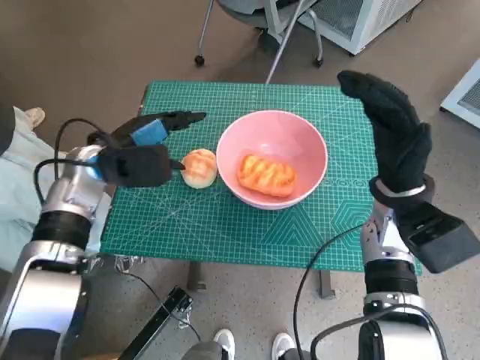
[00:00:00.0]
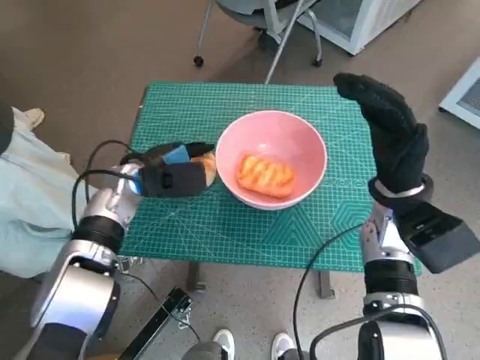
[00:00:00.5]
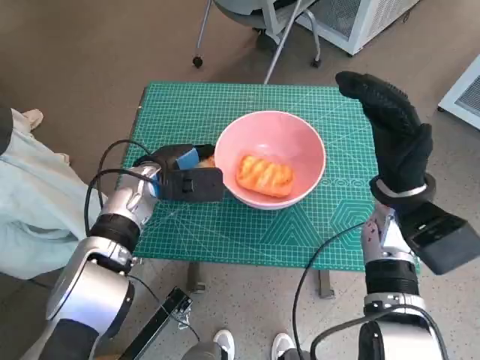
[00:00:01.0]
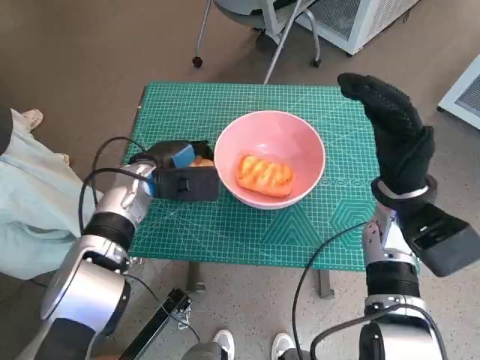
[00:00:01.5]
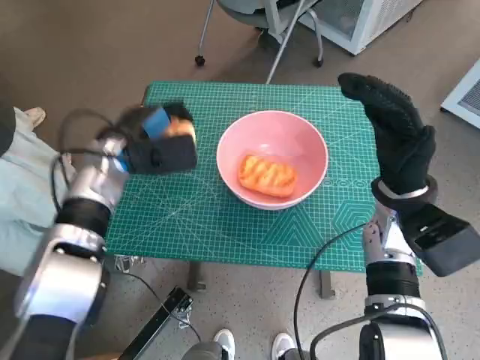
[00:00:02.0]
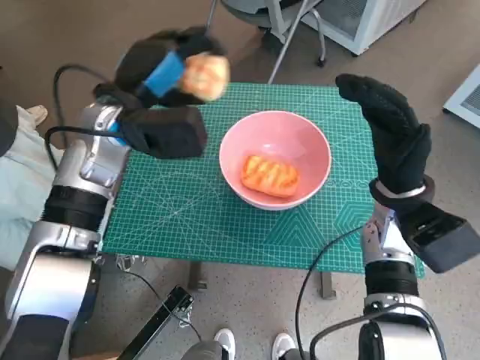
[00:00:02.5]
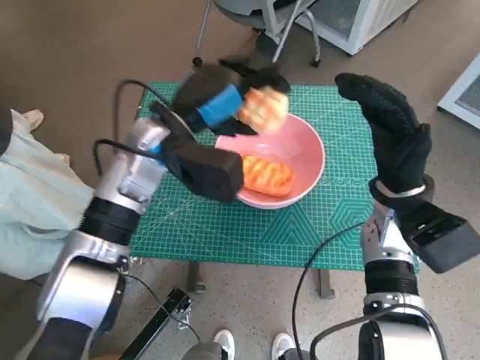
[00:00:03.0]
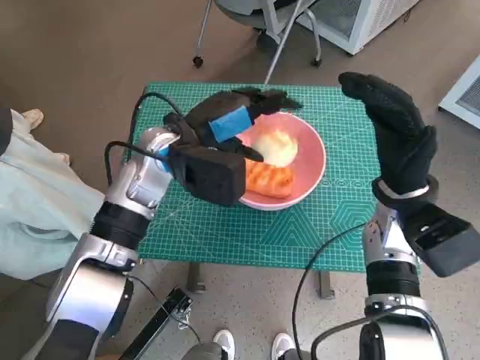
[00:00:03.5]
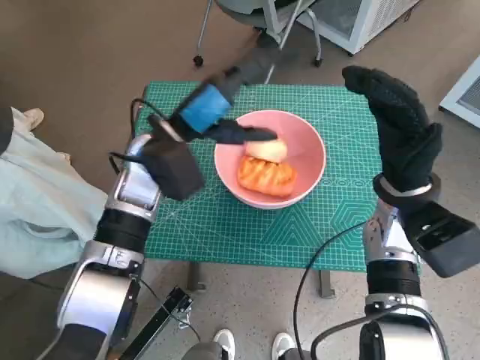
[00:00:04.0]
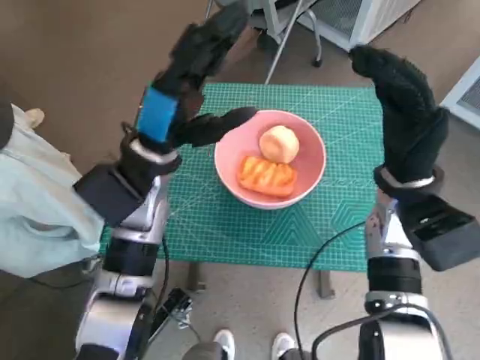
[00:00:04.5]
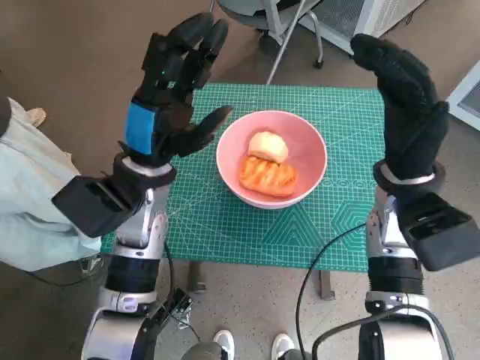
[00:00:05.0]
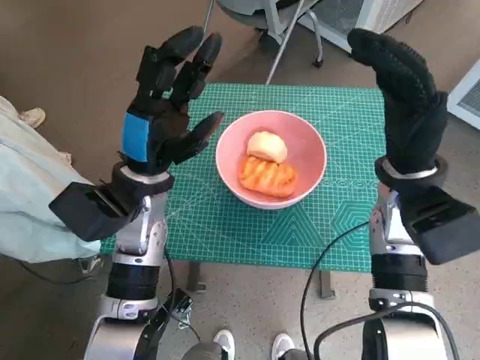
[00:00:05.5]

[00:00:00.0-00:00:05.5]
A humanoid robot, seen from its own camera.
Task of the whole recording: Push the bowl to the center of the table and put the bread into the bowl.
Step, 00:00:01.5 to 00:00:03.0: Place the round bread in pink bowl with left hand.
00:00:02.0 to 00:00:03.5: The left hand is displaced to the right and upward by about 10 cm.
00:00:03.5 to 00:00:05.5: The left hand moves approximately 5 cm.
